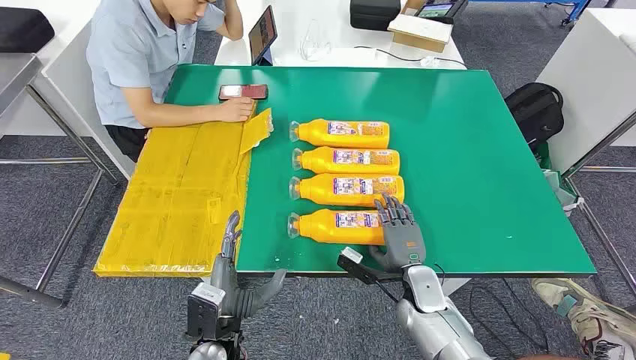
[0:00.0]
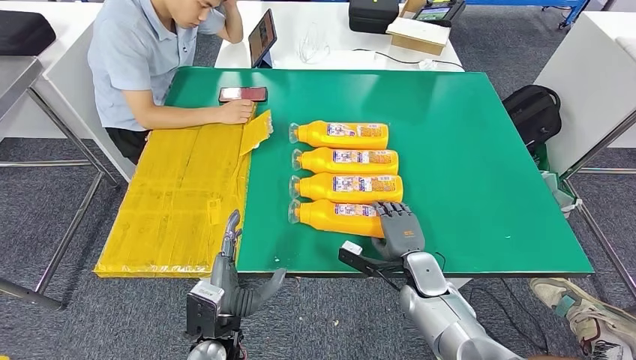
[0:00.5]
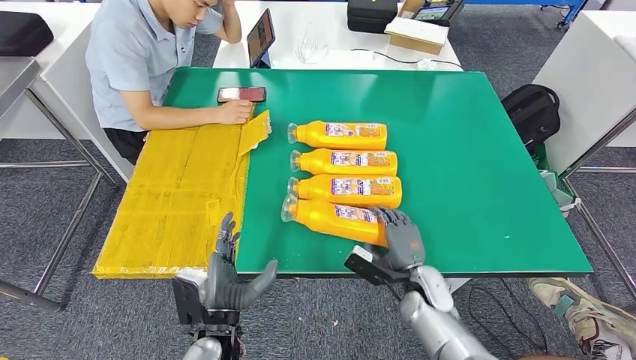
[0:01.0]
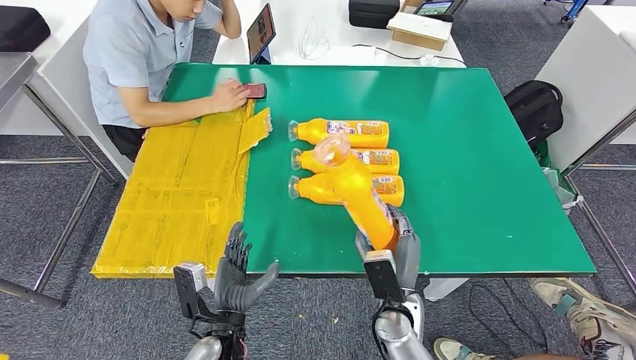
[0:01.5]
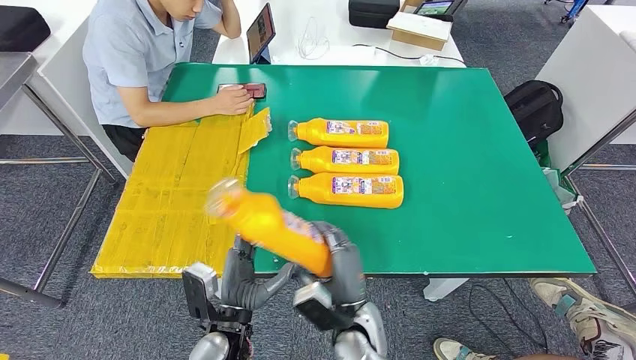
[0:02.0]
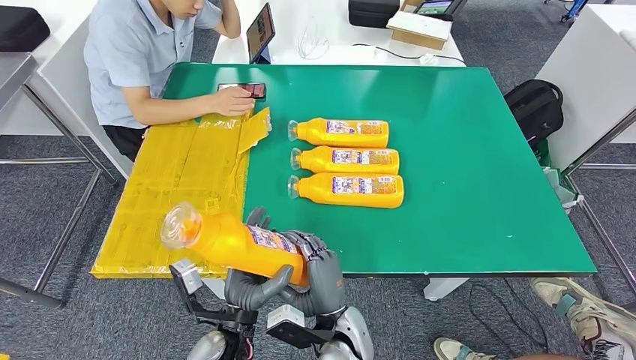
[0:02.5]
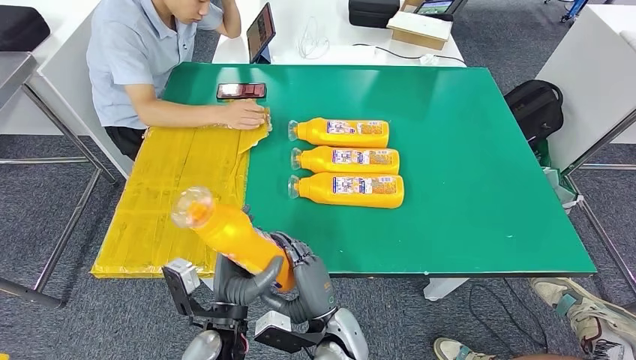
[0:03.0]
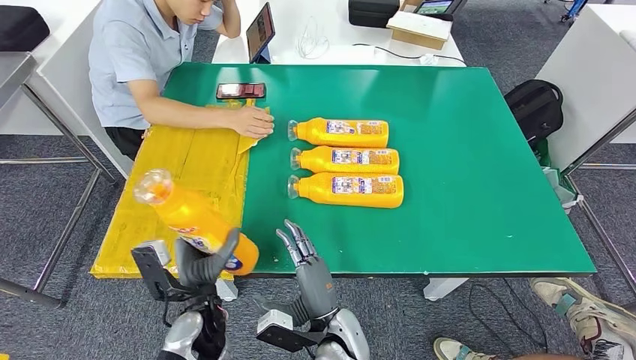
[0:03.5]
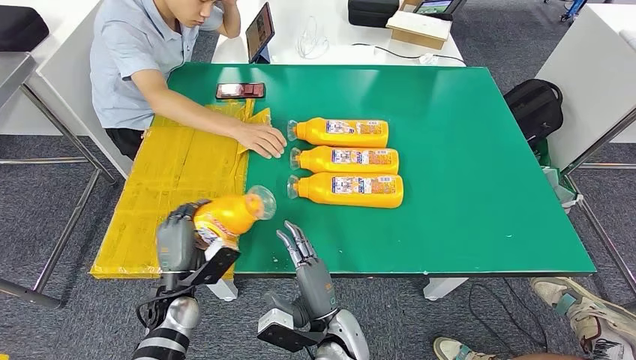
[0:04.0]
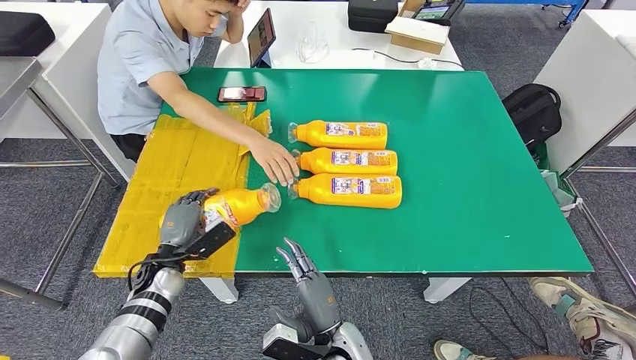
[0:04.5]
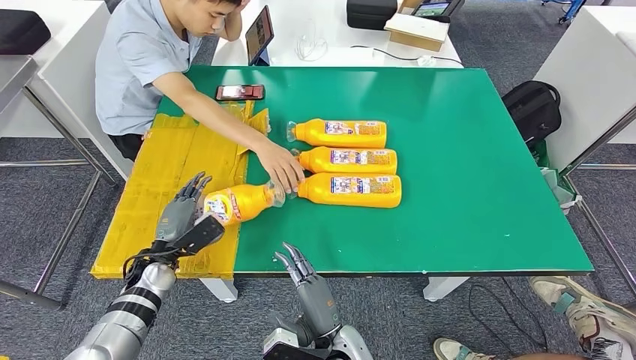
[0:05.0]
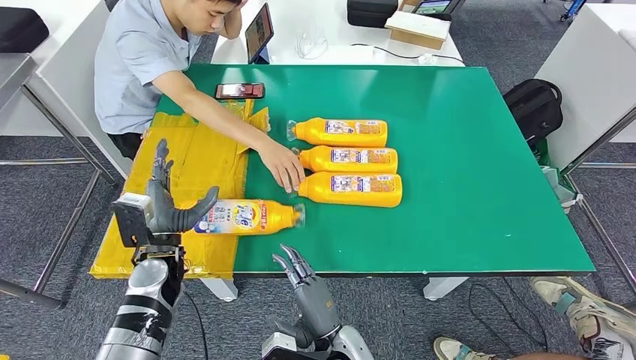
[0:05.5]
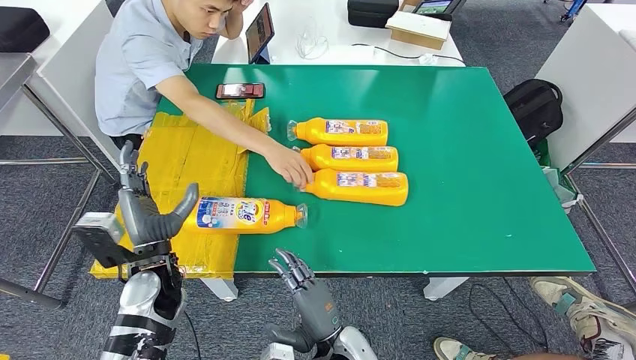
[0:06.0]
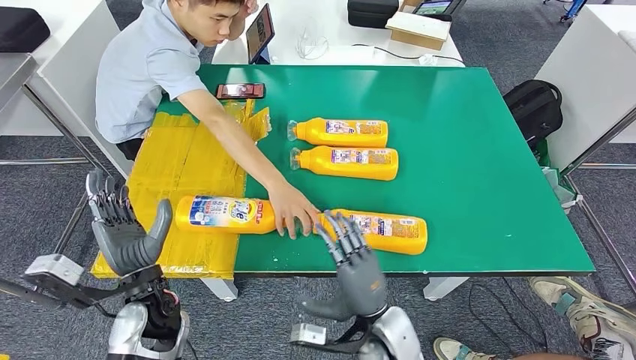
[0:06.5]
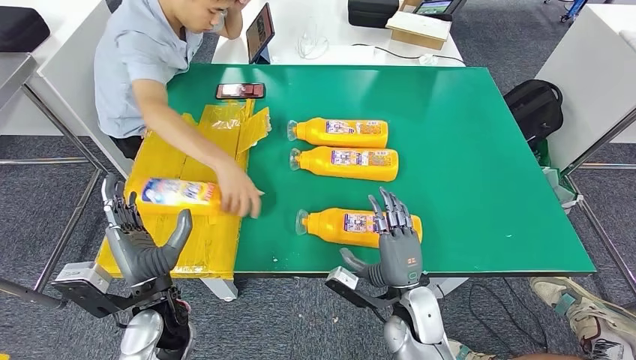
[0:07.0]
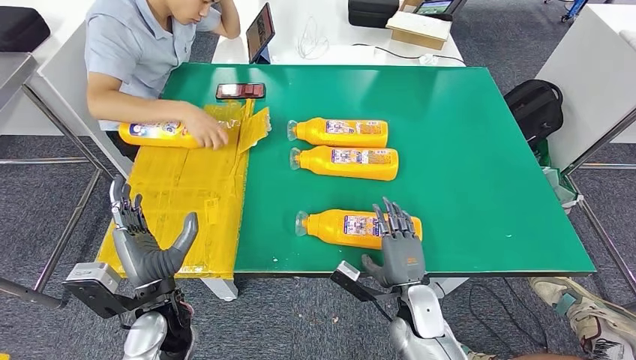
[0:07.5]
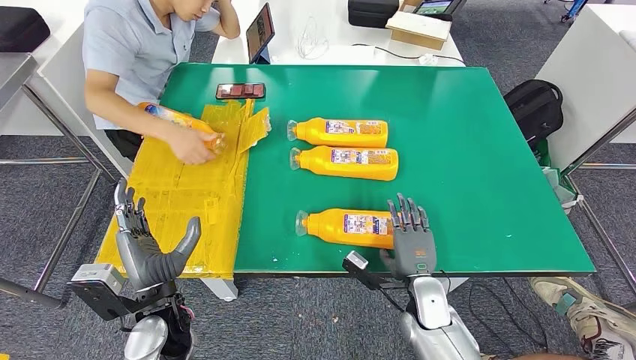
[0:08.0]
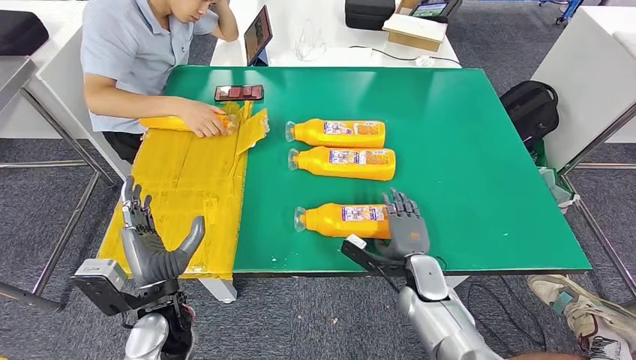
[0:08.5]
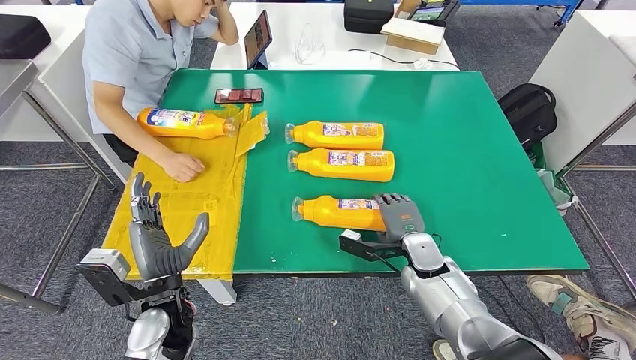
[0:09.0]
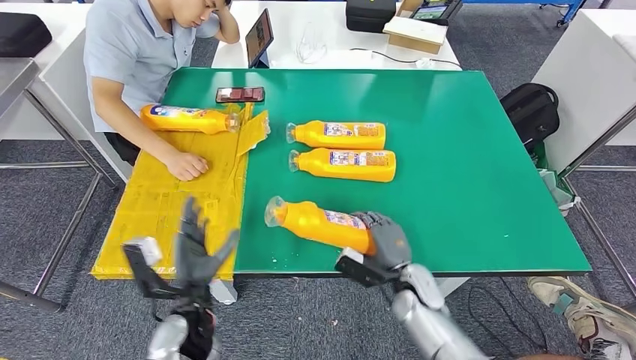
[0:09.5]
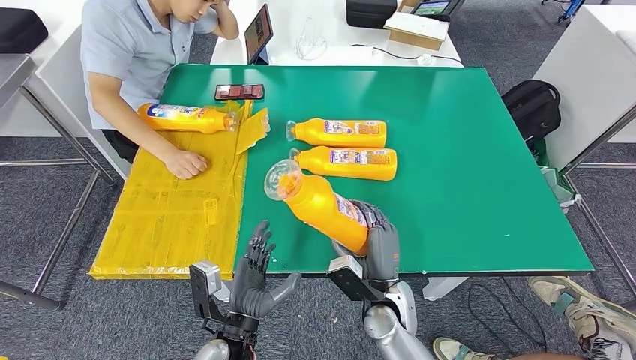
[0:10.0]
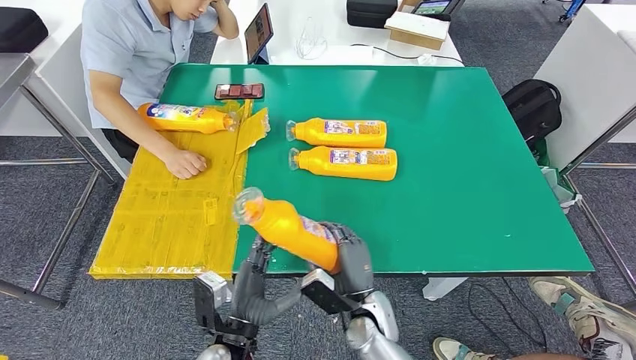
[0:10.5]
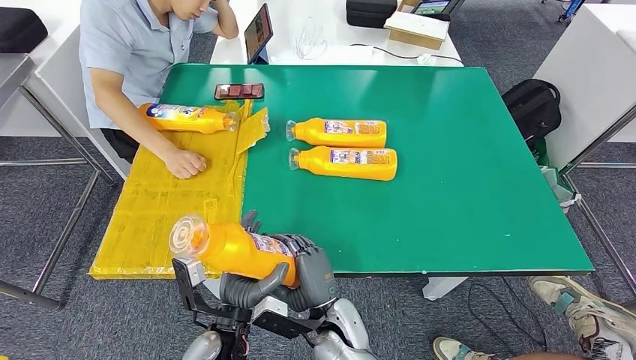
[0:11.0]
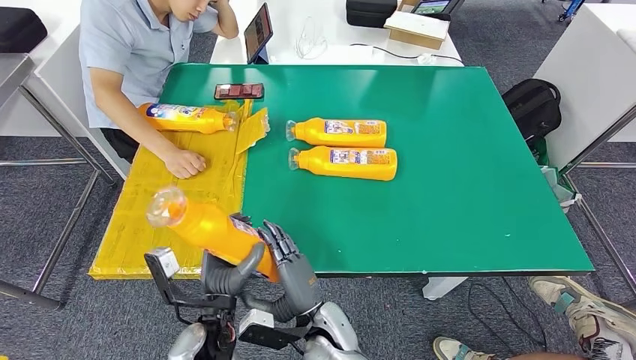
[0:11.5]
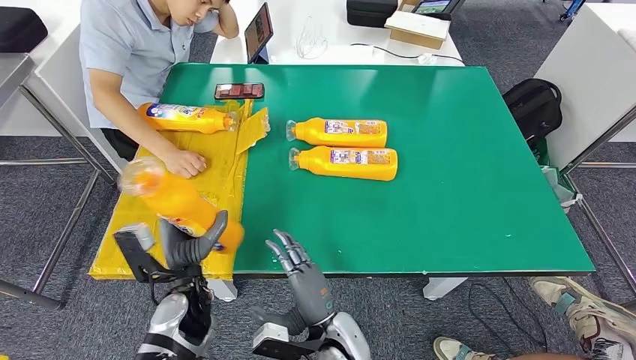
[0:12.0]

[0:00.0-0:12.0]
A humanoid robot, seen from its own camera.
Step, 0:00.0 to 0:03.5: Take the bottle from the table.
Step, 0:04.0 to 0:06.5: Flip the bottle to face forward.
Step, 0:07.0 to 0:10.5: Pick up the bottle from the table.
0:02.0 to 0:04.0: The left hand goes about 15 cm to the left and forward.
0:04.0 to 0:06.0: The left hand shifts approximately 10 cm upward.
0:10.0 to 0:12.0: The left hand travels to the left and forward by some 10 cm. Meanwhile the right hand travels to the left and backward by some 10 cm.

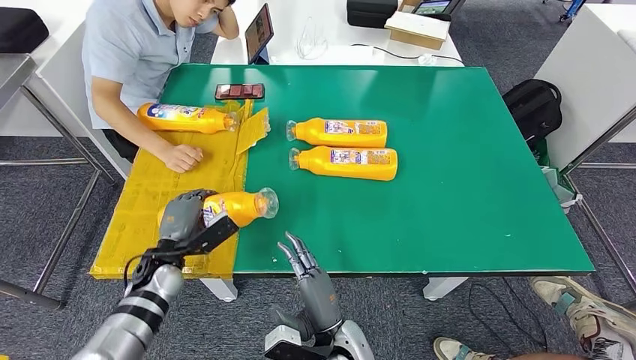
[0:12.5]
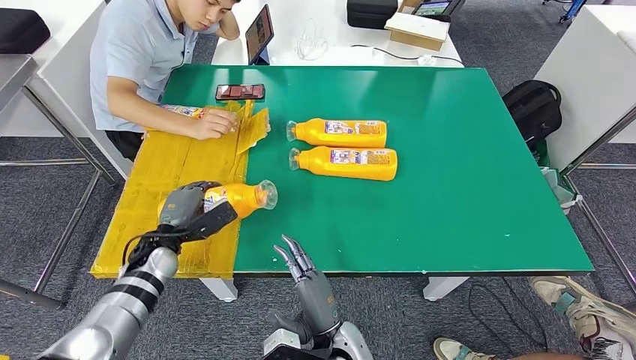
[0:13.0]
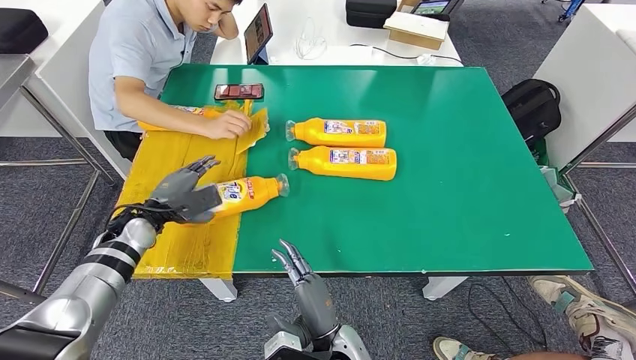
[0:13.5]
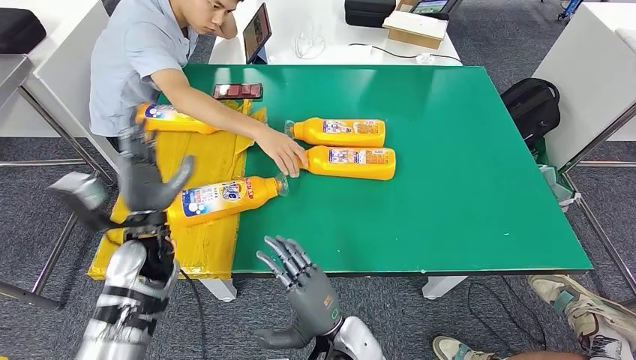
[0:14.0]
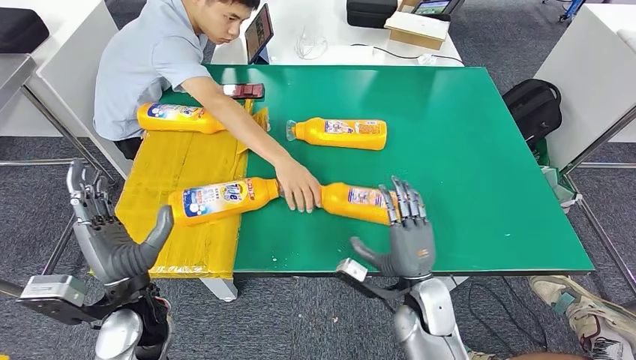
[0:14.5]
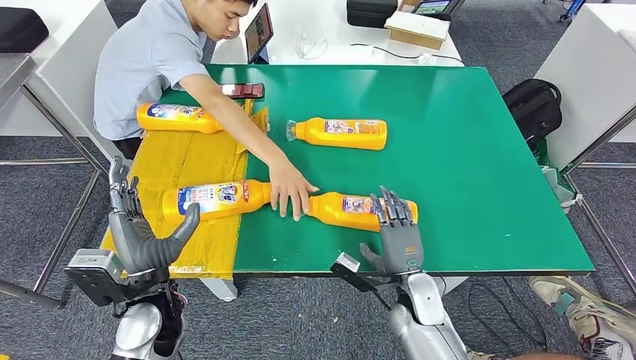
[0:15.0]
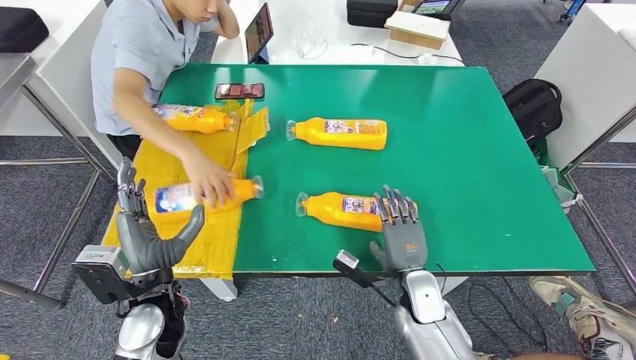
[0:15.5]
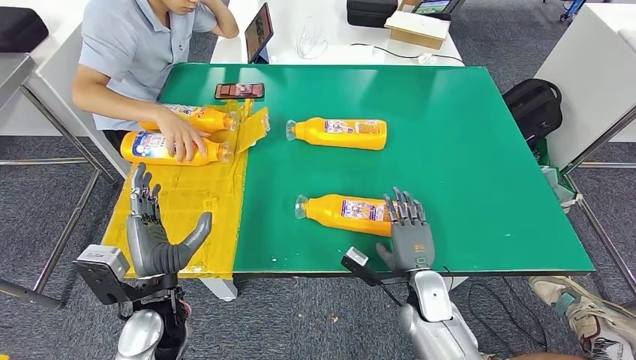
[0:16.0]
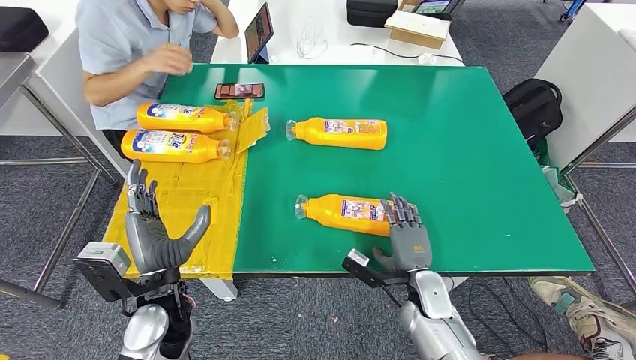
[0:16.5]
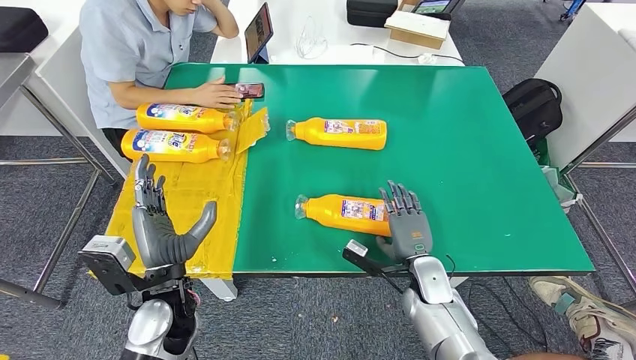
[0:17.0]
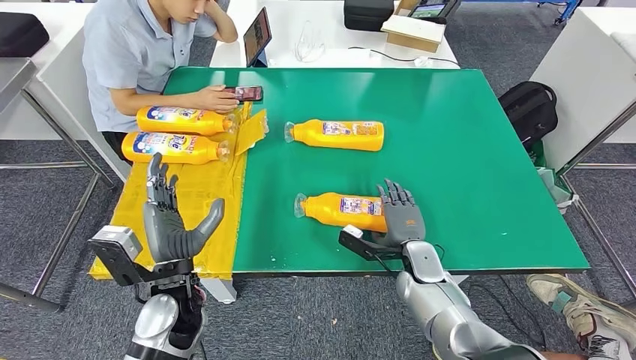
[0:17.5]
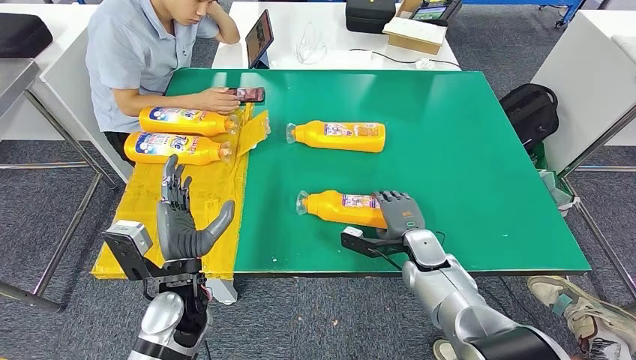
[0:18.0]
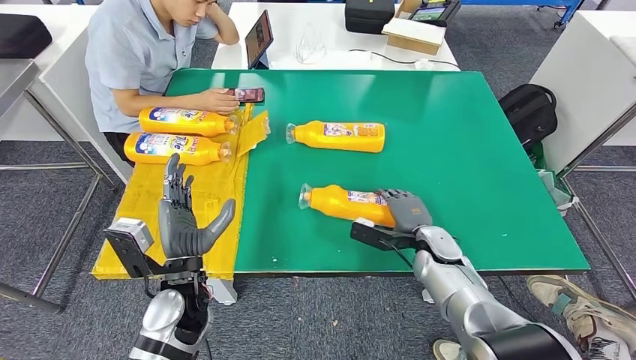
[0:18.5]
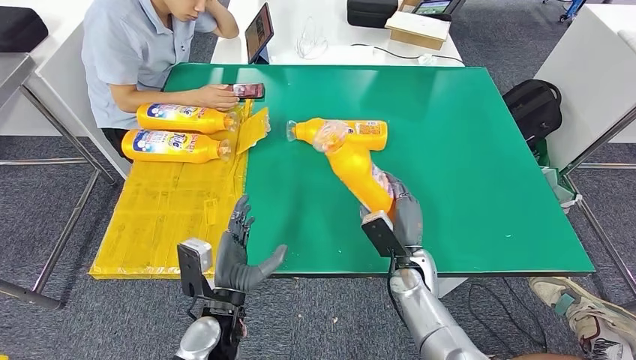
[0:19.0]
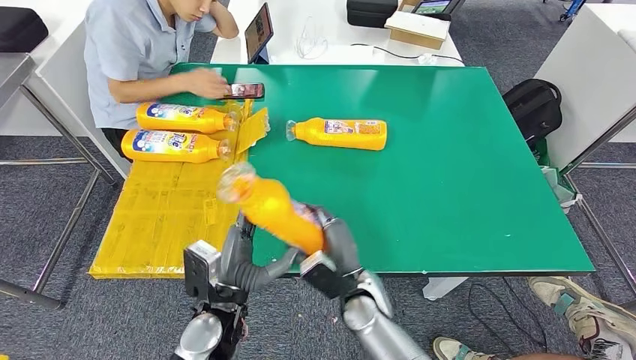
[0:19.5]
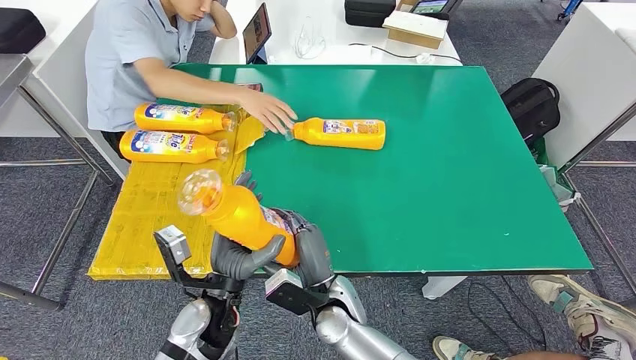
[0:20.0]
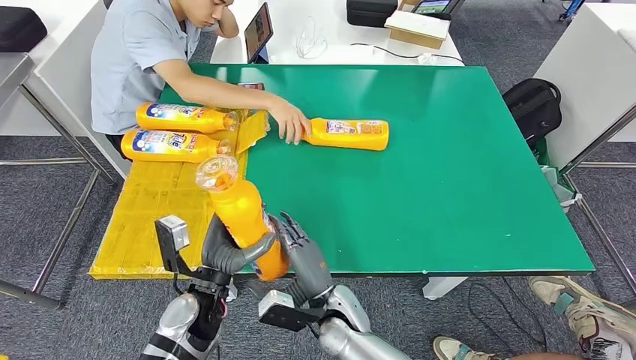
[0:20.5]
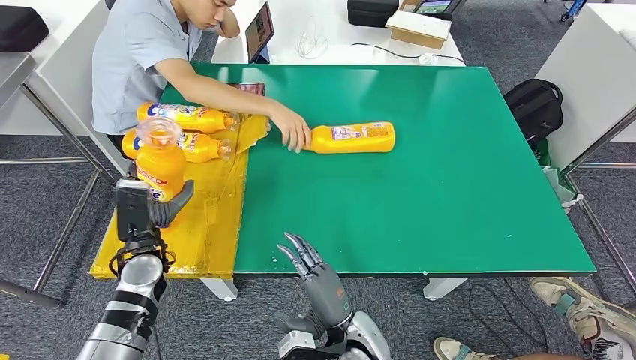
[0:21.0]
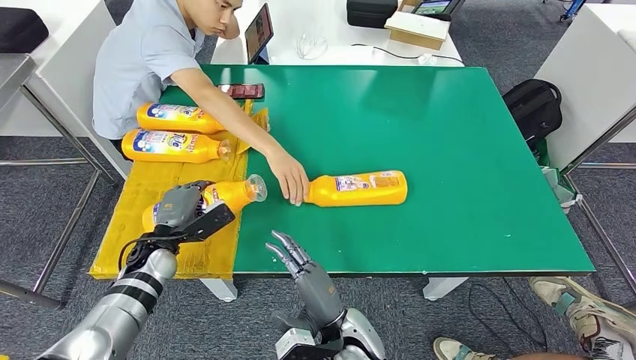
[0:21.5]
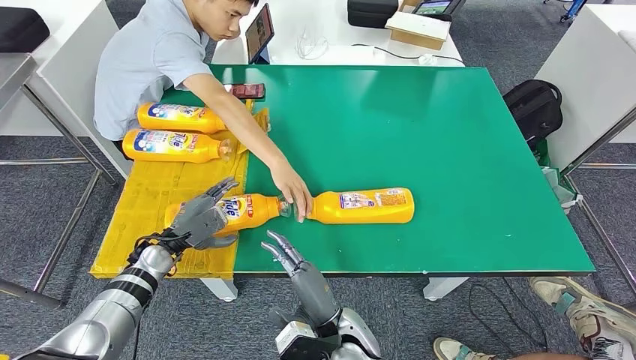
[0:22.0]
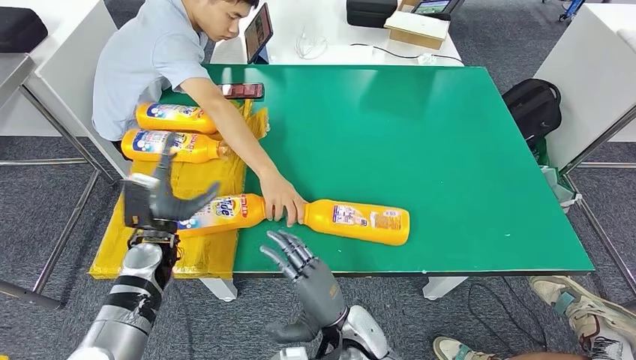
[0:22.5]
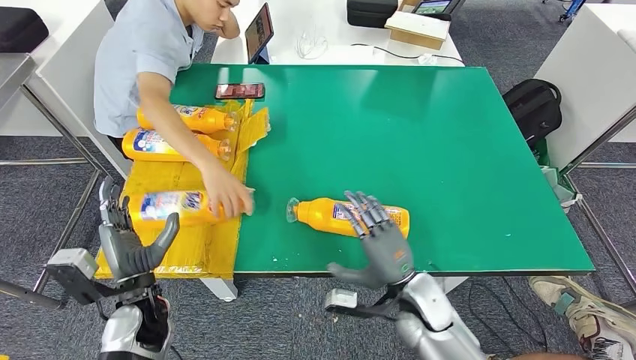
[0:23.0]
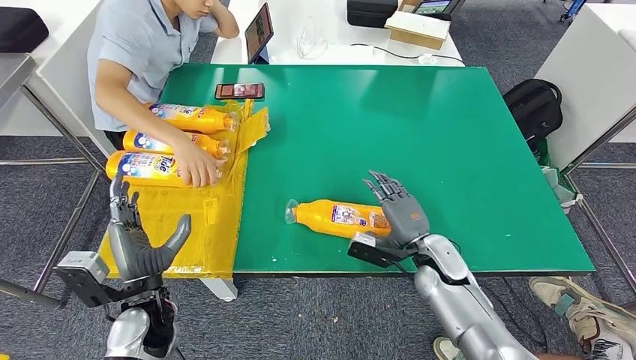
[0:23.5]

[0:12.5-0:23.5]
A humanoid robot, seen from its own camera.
Step, 0:12.5 to 0:14.5: Flip the bottle to face forward.
Step, 0:17.0 to 0:19.5: Pick up the bottle from the table.
Step, 0:20.0 to 0:22.0: Flip the bottle to face forward.
